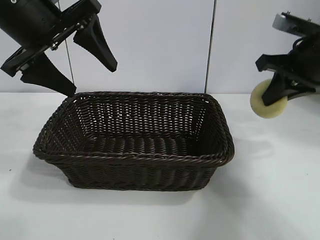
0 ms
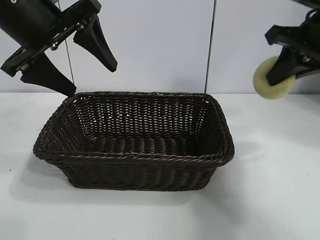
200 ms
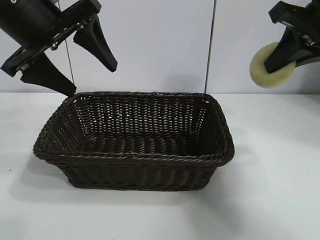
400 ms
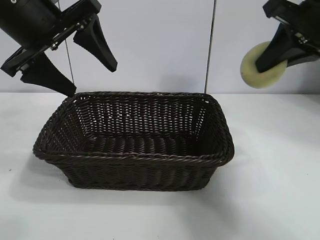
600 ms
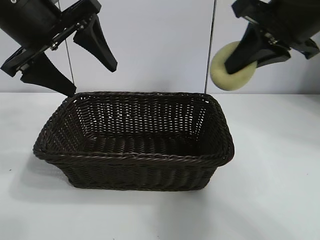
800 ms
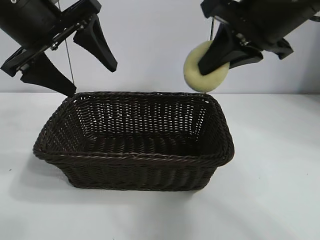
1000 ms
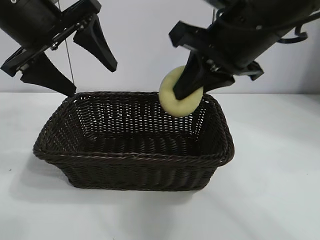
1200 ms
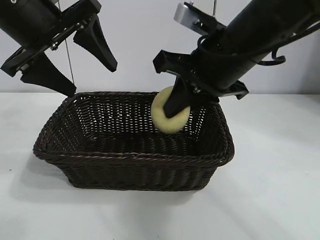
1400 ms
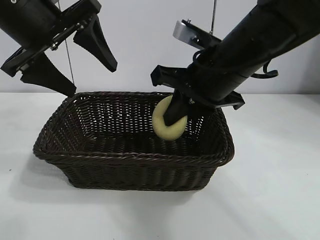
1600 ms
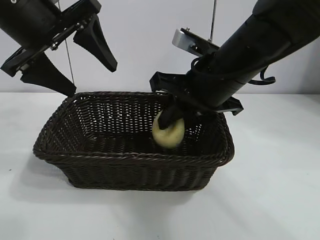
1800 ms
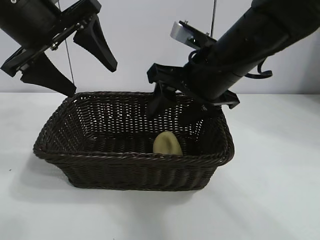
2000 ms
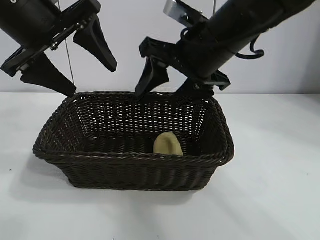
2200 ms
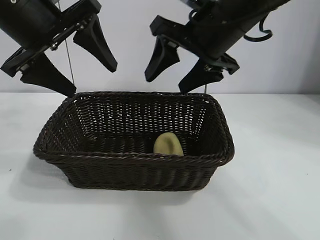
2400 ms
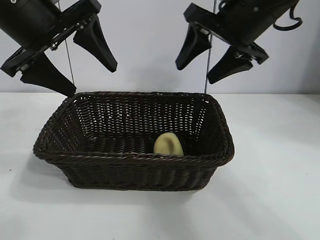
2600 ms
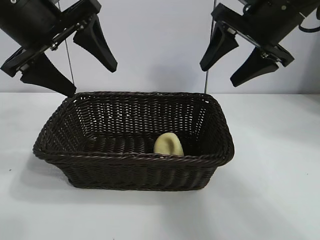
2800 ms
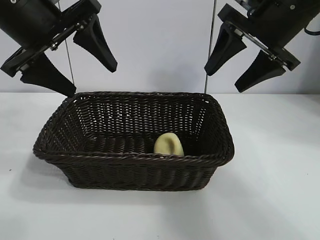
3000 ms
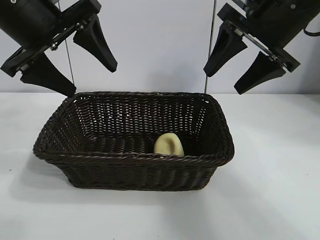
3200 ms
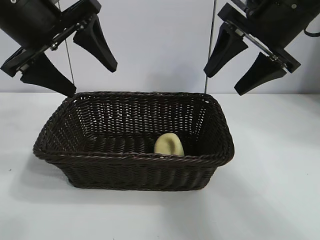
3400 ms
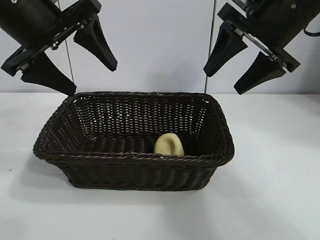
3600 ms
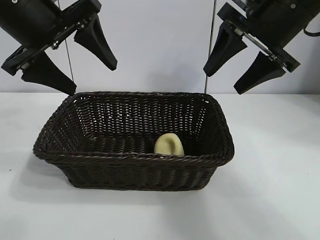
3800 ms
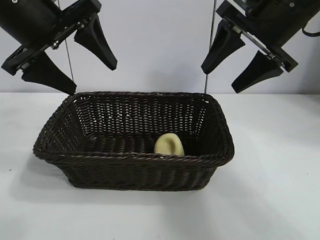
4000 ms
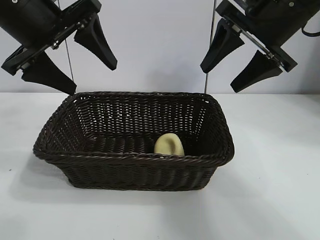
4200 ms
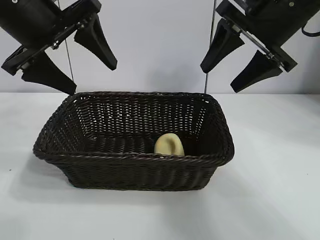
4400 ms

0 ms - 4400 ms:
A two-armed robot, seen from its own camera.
Task of the whole recording: pick up the egg yolk pastry and put it into the basket.
Step, 0 ms - 2000 ms: Place the egg yolk pastry in the basket with right gripper.

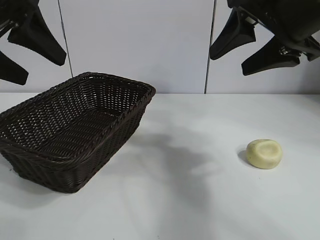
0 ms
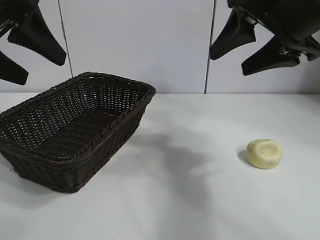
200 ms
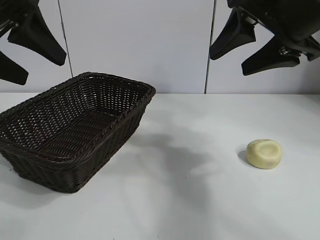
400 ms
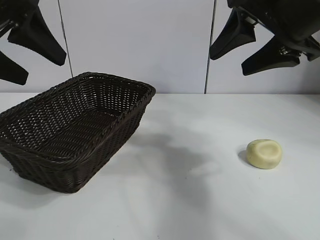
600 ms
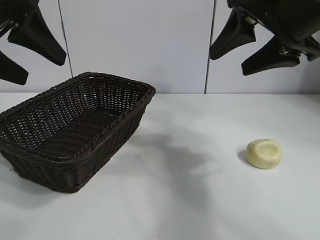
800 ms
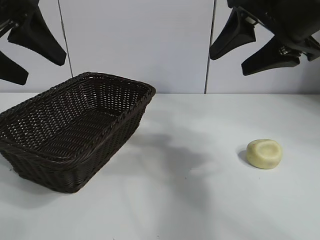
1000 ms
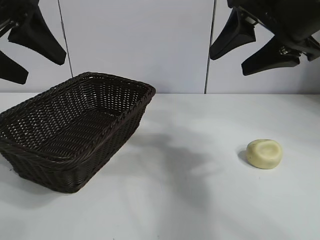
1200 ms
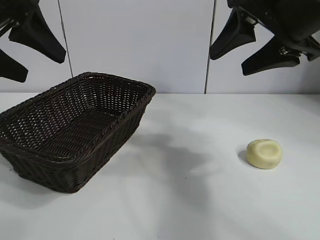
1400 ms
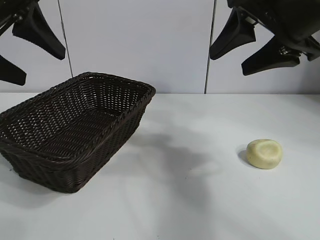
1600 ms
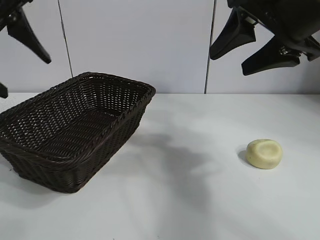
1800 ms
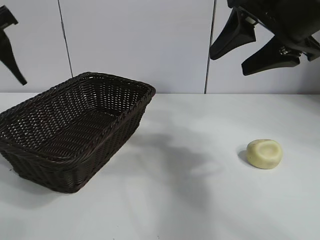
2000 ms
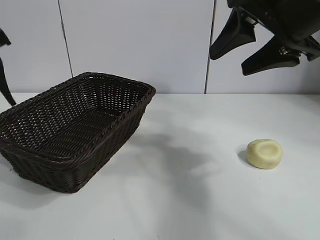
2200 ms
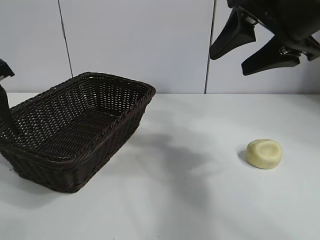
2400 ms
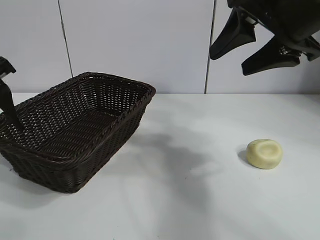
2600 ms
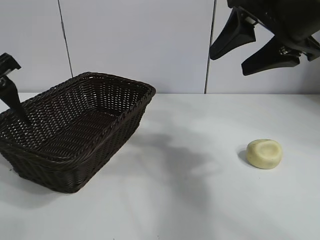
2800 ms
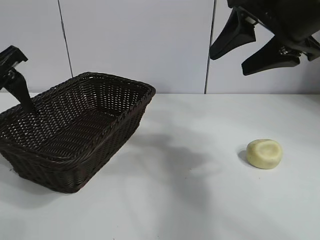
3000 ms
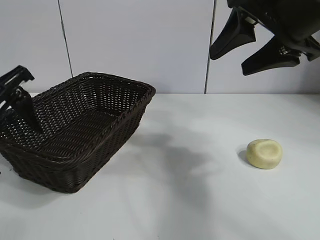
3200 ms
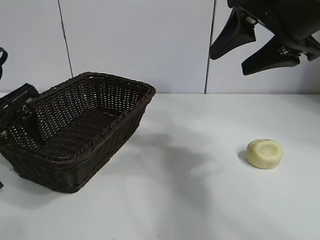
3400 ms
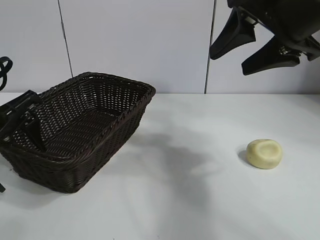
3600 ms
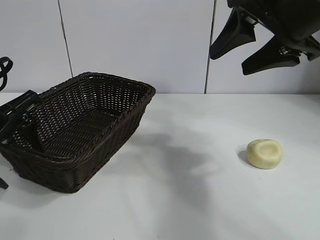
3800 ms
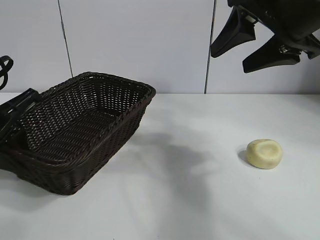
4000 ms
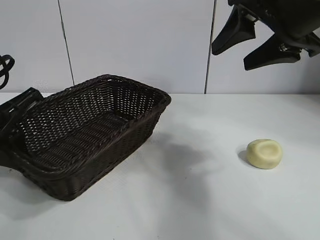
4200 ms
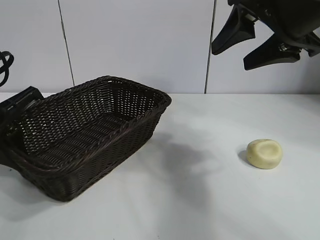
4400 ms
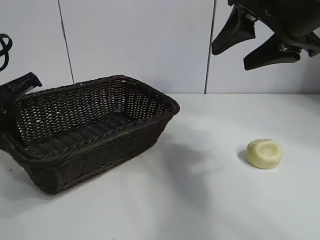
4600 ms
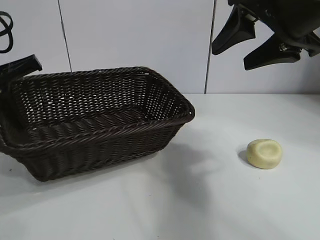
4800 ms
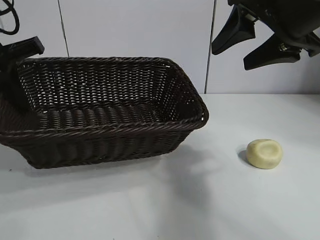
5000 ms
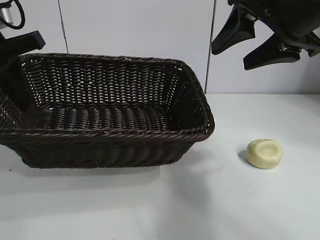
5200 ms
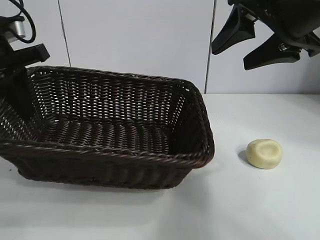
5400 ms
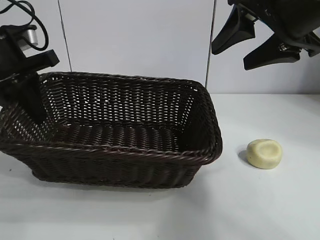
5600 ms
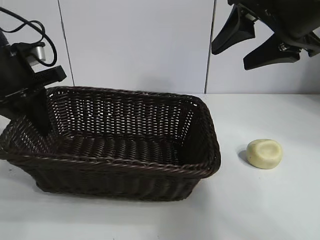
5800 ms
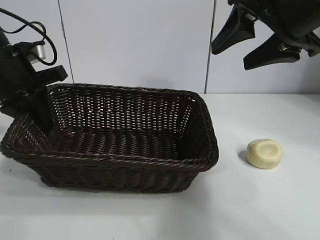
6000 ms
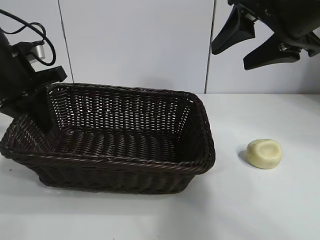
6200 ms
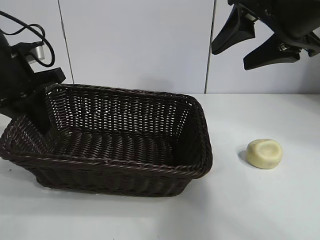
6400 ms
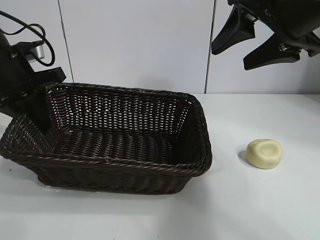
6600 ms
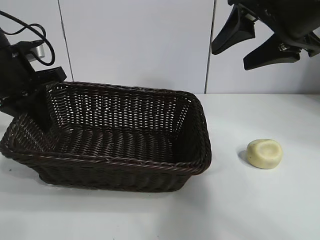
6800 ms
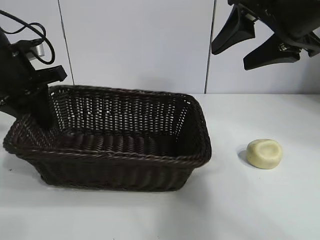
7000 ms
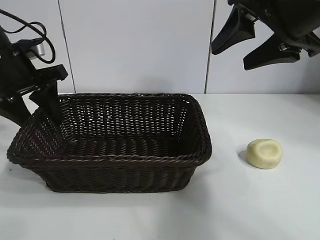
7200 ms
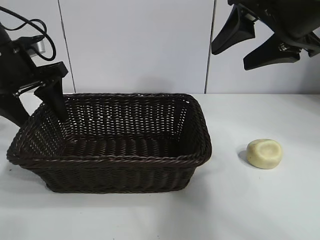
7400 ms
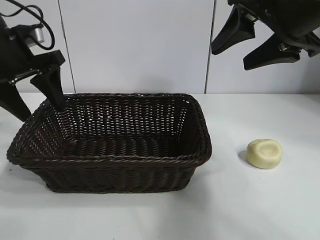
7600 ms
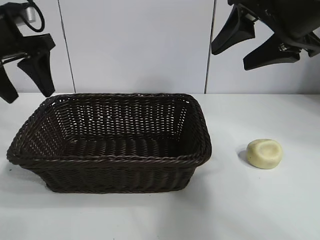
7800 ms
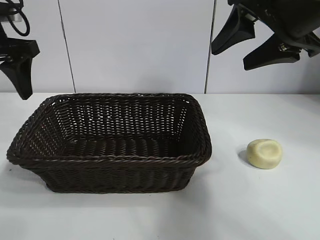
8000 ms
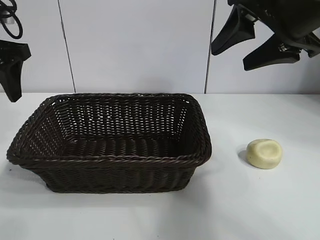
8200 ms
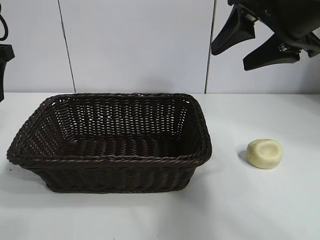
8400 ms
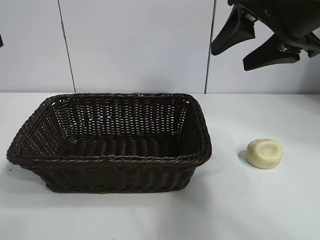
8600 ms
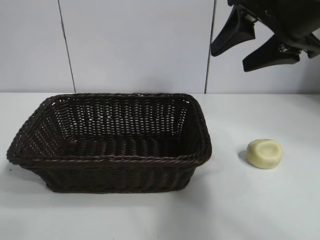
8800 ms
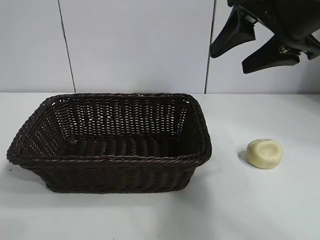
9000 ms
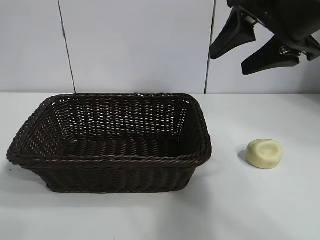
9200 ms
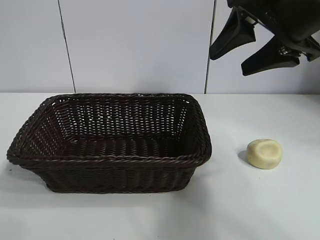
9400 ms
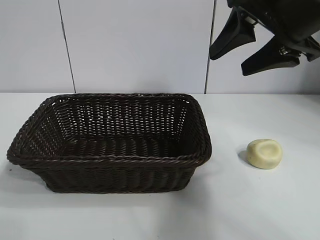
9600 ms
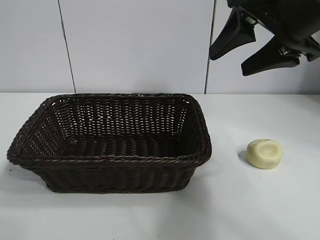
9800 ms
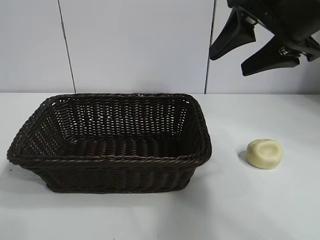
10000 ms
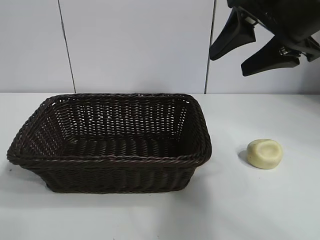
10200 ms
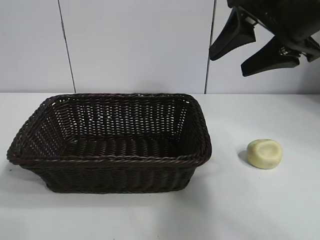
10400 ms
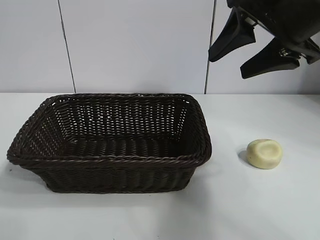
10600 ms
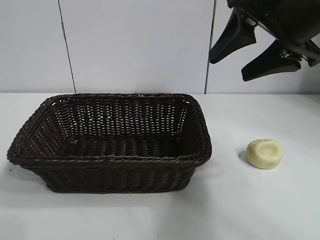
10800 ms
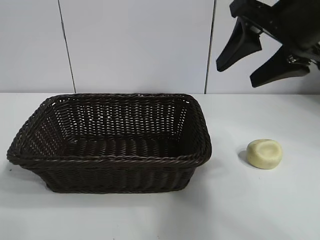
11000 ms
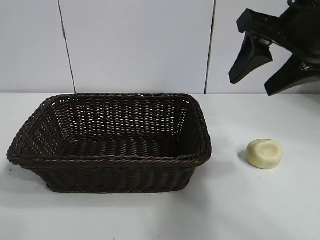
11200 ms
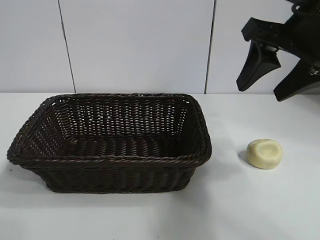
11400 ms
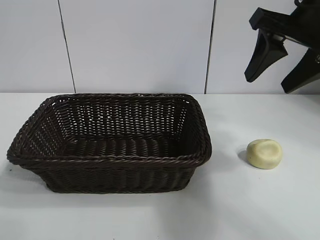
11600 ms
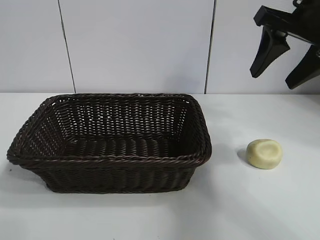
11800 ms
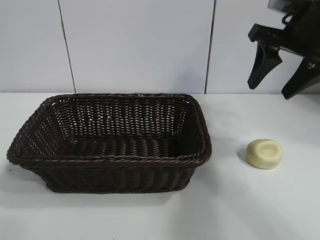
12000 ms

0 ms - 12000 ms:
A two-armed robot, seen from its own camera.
Task of the whole recording: pick up the egg yolk pastry and put it into the basket.
Step, 1200 ms - 4000 ms: Grasp the basket with left gripper.
Step, 4400 ms - 7600 ms: Place the basket in the center of view with left gripper.

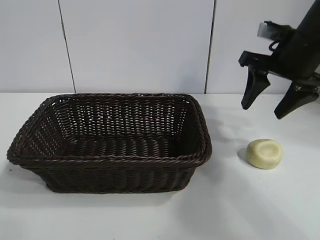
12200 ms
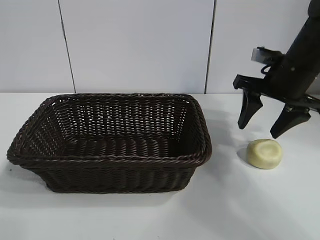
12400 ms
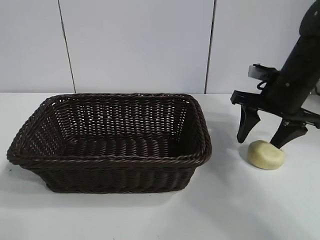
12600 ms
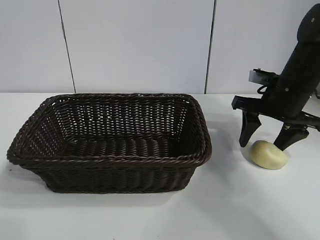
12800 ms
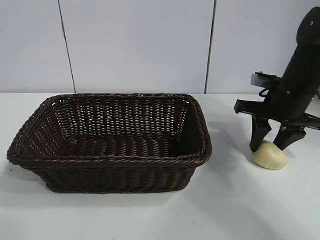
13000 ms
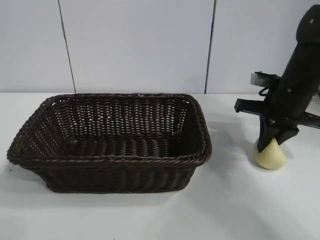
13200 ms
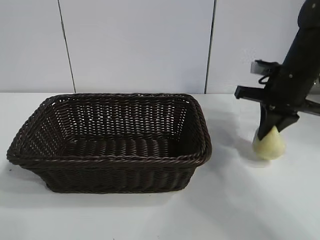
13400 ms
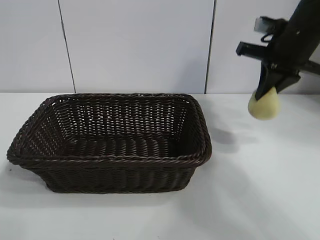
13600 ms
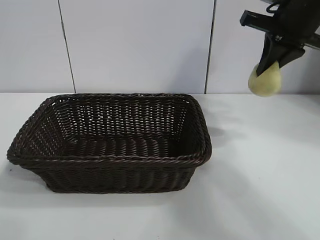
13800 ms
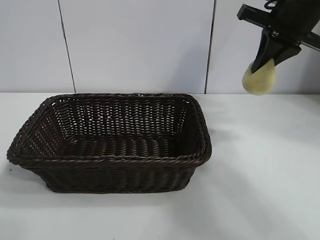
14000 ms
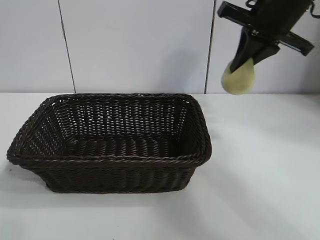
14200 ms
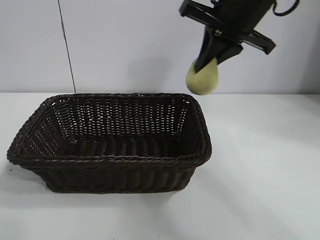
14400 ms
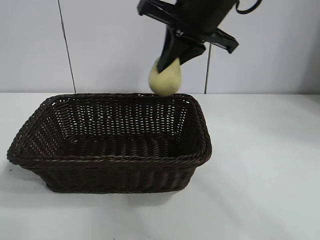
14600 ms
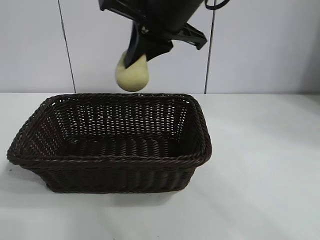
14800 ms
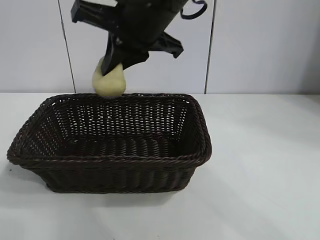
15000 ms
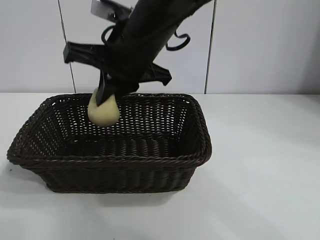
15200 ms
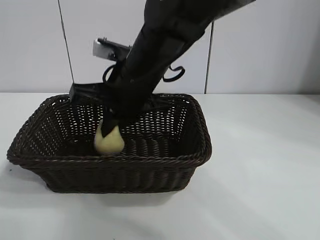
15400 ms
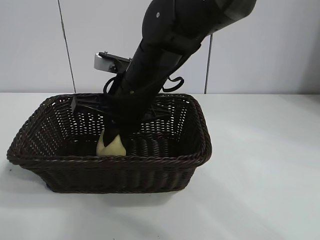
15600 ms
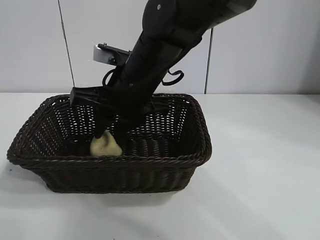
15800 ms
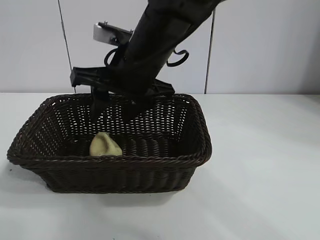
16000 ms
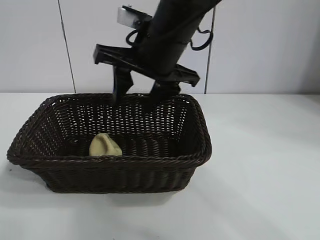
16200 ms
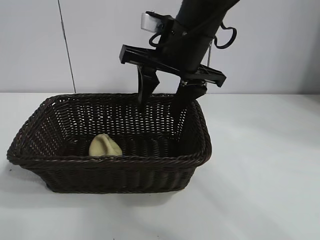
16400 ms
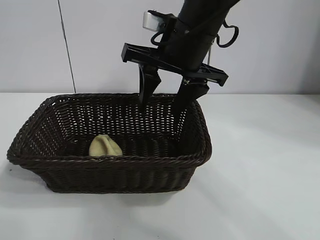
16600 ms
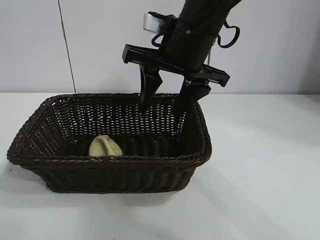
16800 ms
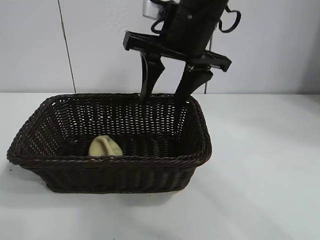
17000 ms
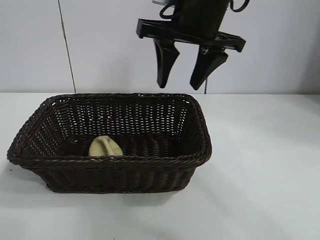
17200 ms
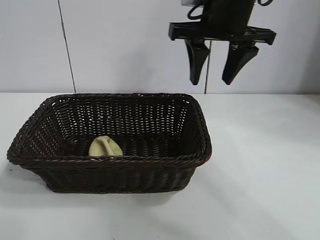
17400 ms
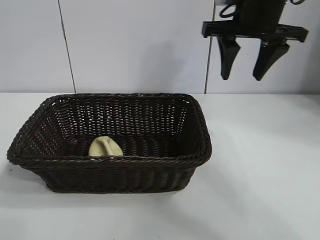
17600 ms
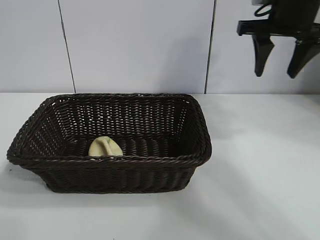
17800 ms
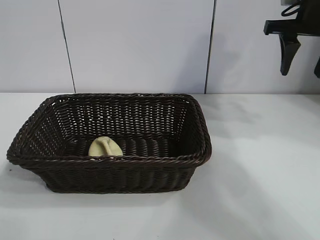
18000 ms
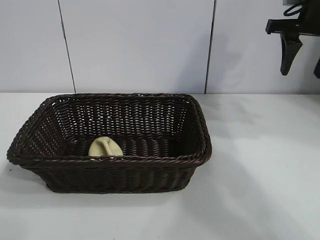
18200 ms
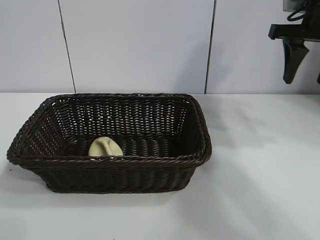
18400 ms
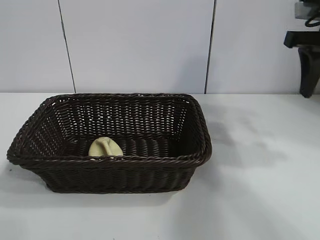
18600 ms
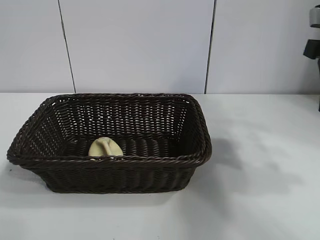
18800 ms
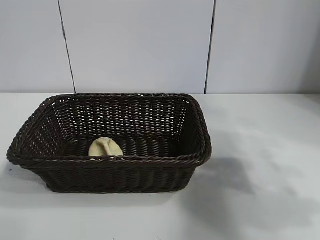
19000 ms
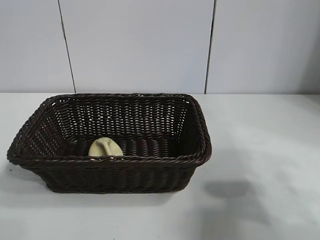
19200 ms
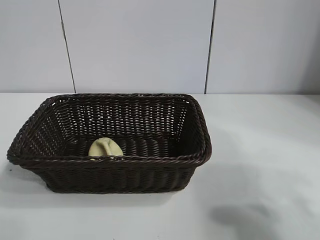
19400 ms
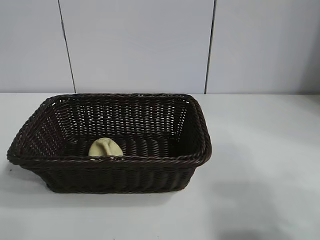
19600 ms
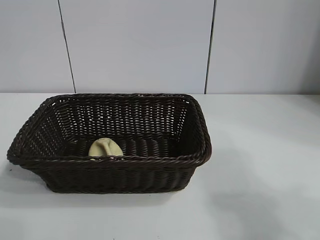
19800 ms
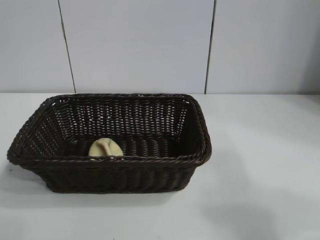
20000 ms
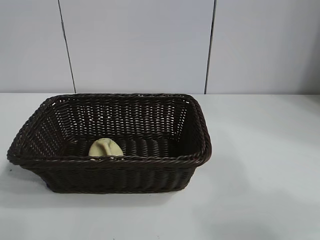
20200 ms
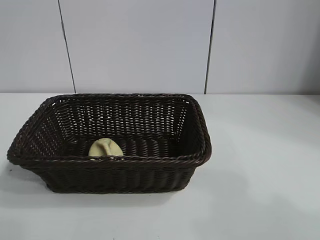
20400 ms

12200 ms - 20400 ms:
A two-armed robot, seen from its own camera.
Task of the whole recording: pick up the egg yolk pastry and put it into the basket.
Step, 13400 ms - 15800 ms: Place the egg yolk pastry in the basket with right gripper.
